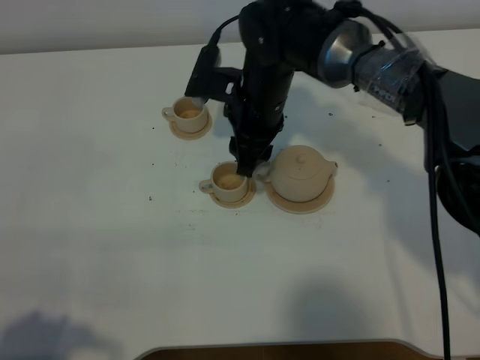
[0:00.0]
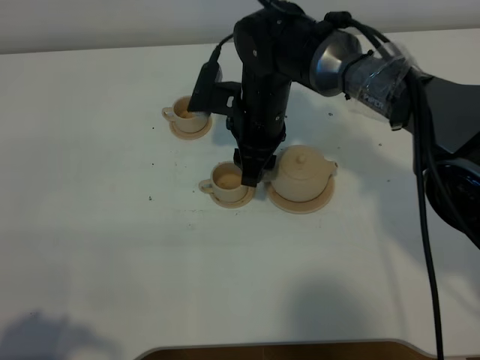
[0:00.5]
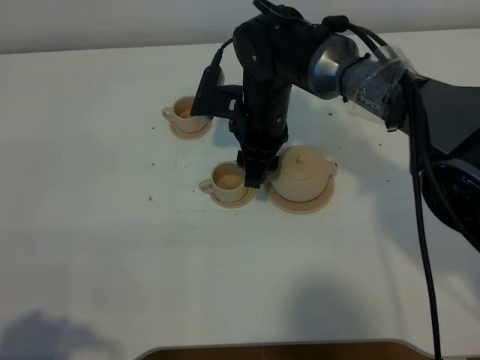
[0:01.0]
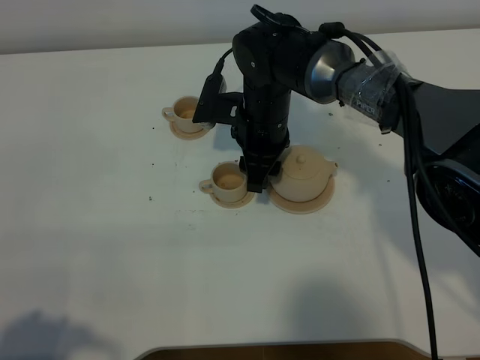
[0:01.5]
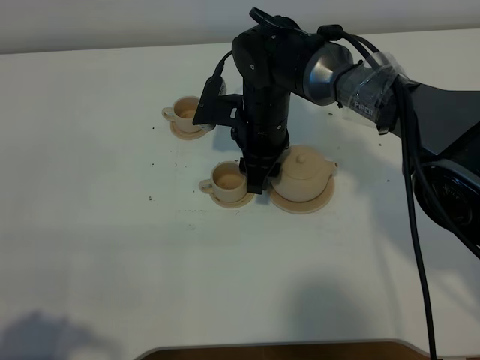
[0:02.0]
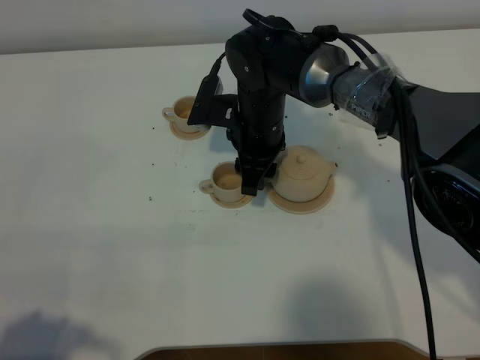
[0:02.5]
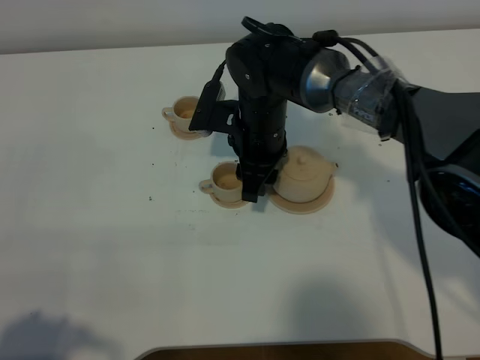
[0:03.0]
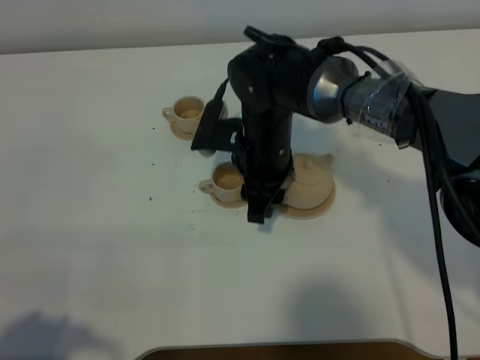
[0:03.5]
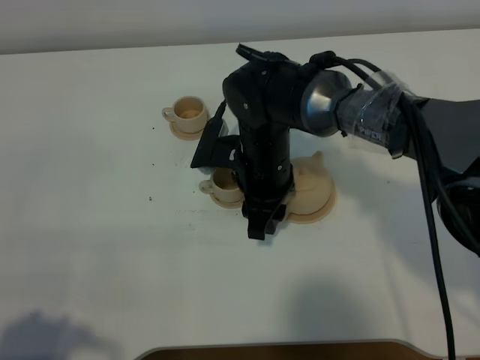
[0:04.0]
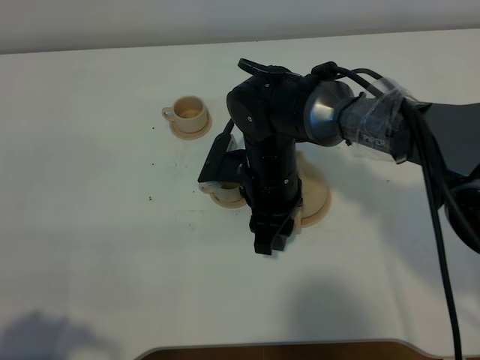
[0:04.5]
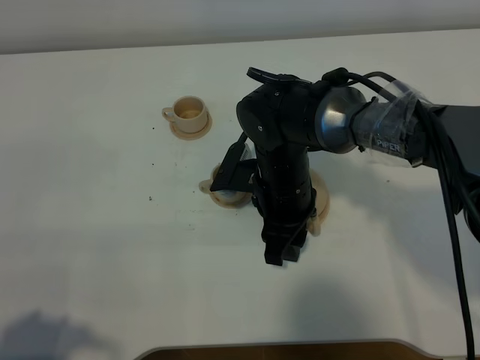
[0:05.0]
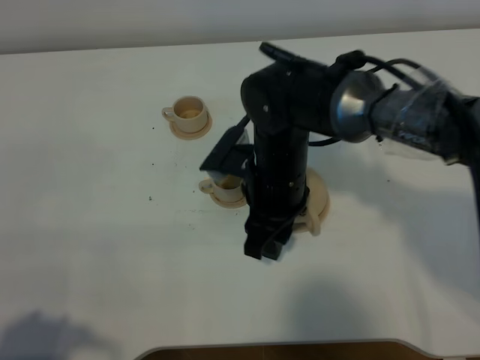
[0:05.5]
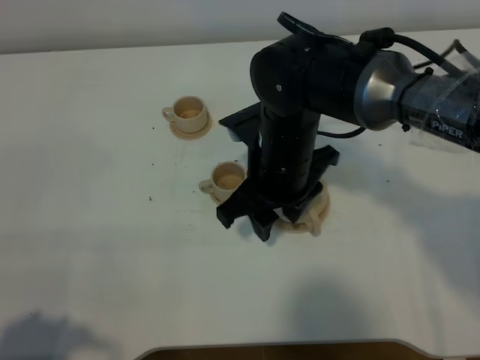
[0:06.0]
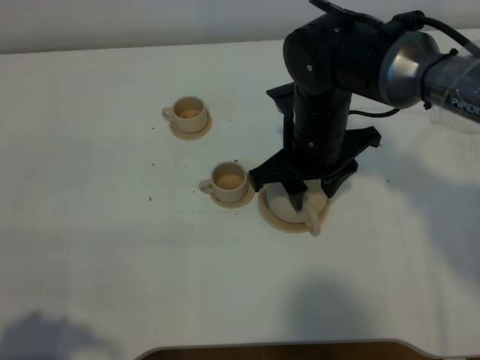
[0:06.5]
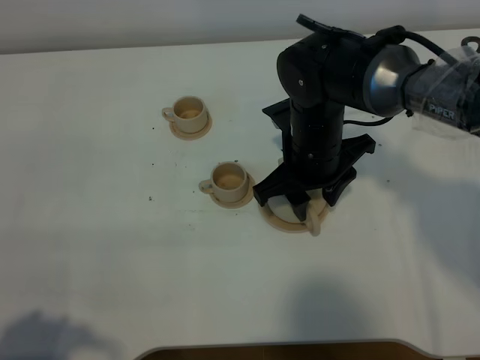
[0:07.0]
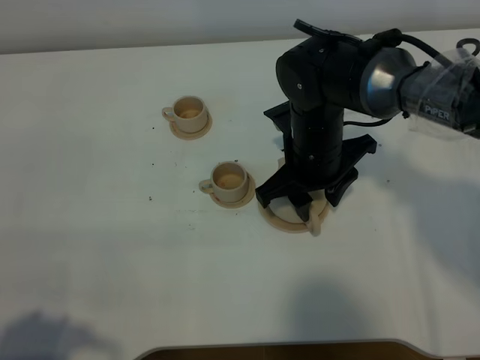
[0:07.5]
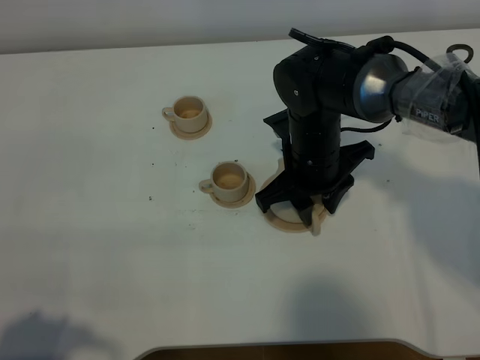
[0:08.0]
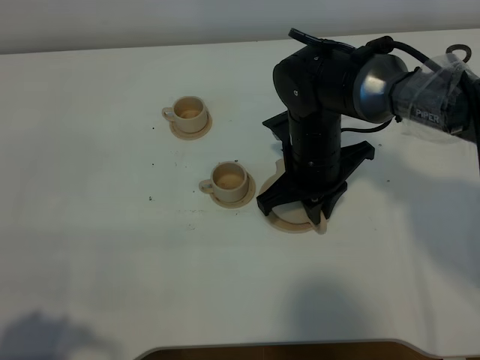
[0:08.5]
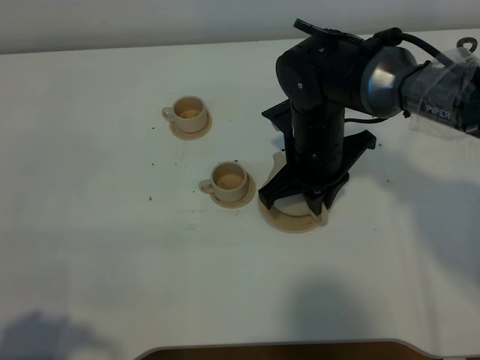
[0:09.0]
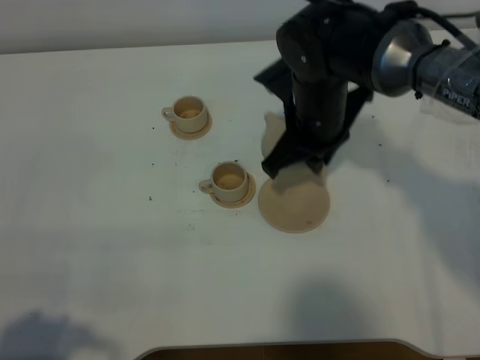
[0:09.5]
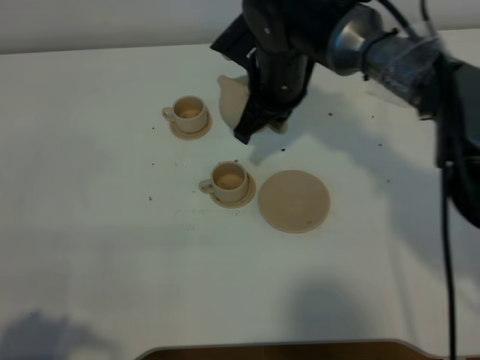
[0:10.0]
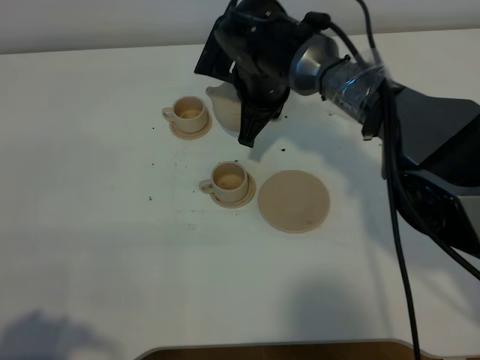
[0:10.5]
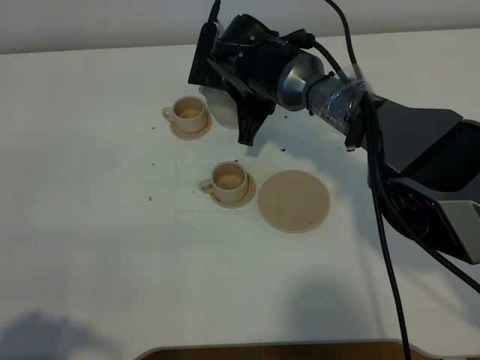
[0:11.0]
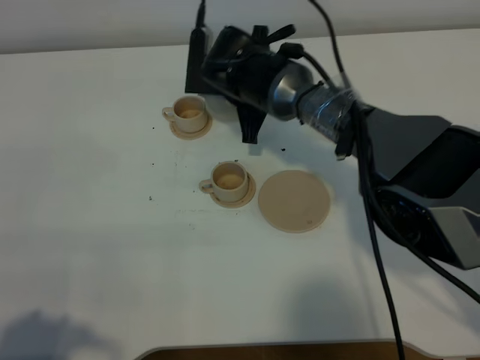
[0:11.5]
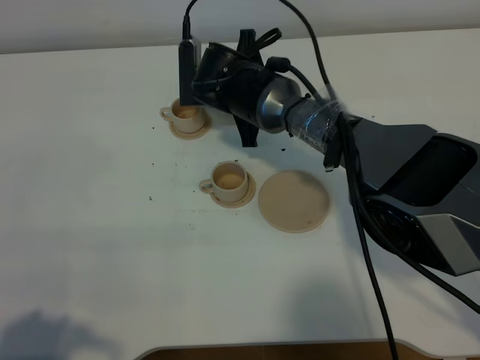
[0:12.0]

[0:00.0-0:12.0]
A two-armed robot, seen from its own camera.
Task of the whole recording: grasp the brown teapot and pour the tea into the two brown teacups one by one, put the brown teapot back in its original place.
Step, 0:00.0 to 0:09.0: Pick up the teapot with the right gripper.
0:00.0 to 0:02.0: The grippers make only small movements.
0:02.0 to 0:04.0: The right gripper is displaced backward by about 5 cm.
0:04.0 to 0:06.0: The right gripper heads upward, covering roughly 5 cm.
0:06.0 to 0:08.0: The right gripper shifts by approximately 5 cm.
0:08.0 to 0:10.0: The right gripper goes roughly 10 cm forward and upward, and closes its fingers.
0:10.0 to 0:12.0: The right gripper heads downward, covering roughly 5 cm.

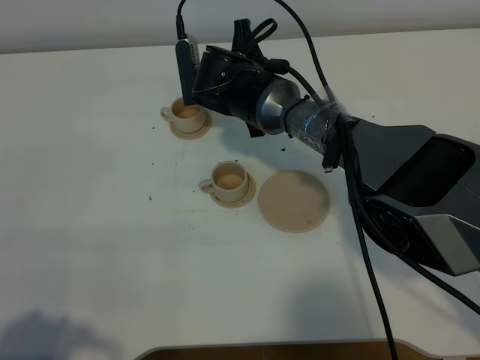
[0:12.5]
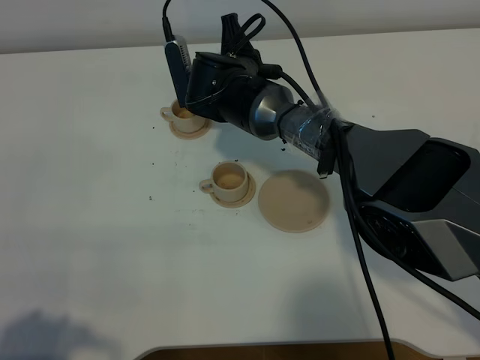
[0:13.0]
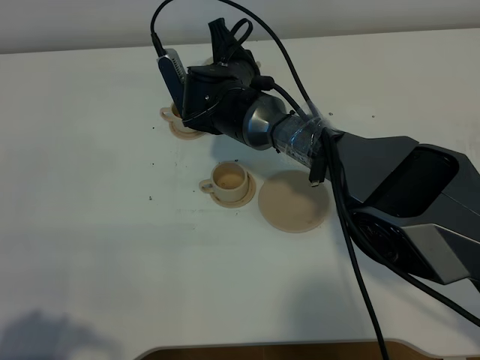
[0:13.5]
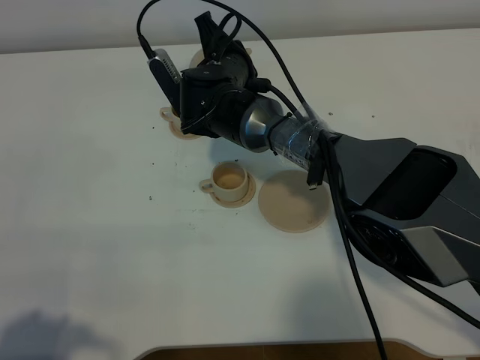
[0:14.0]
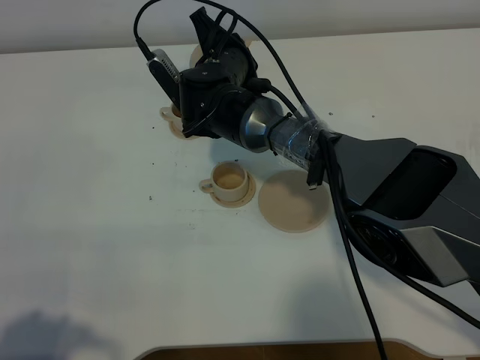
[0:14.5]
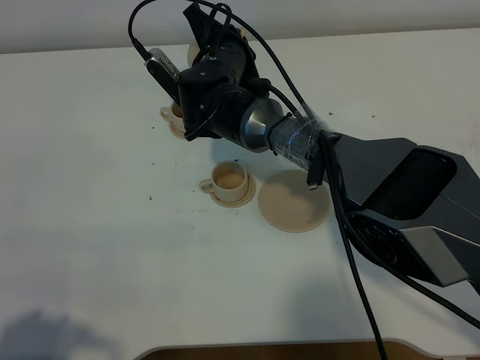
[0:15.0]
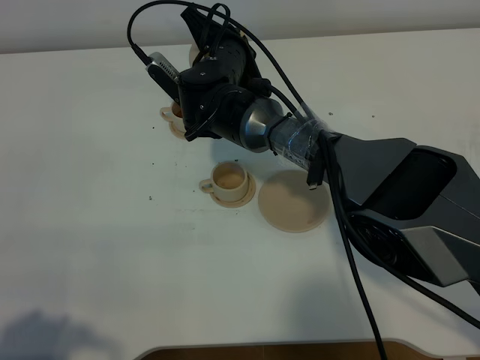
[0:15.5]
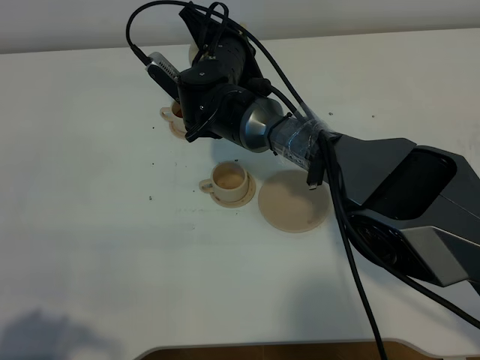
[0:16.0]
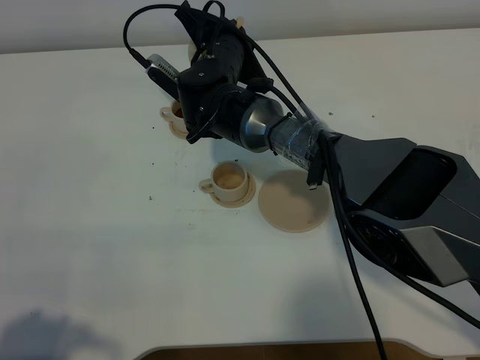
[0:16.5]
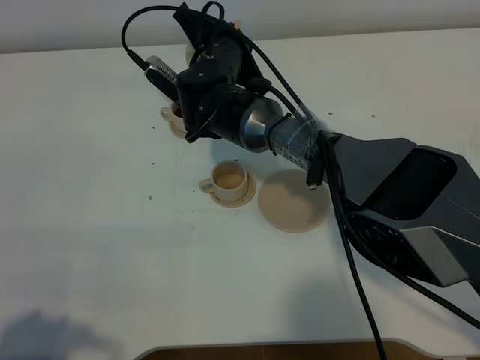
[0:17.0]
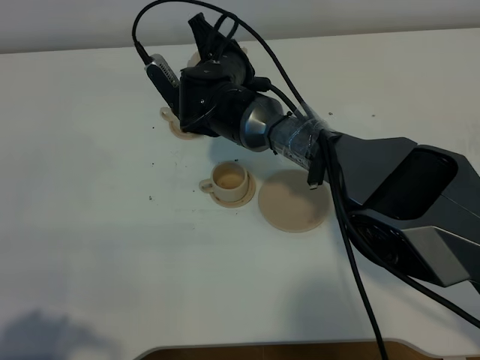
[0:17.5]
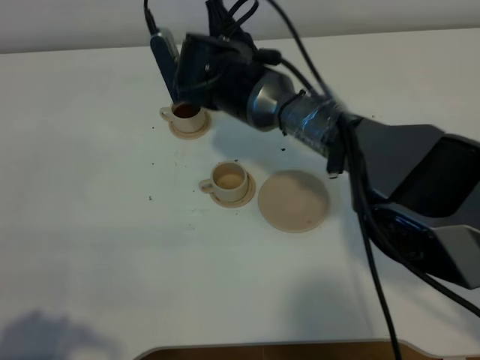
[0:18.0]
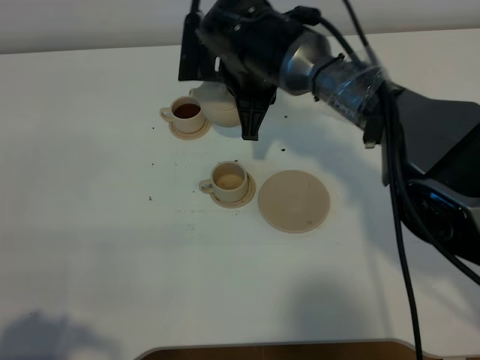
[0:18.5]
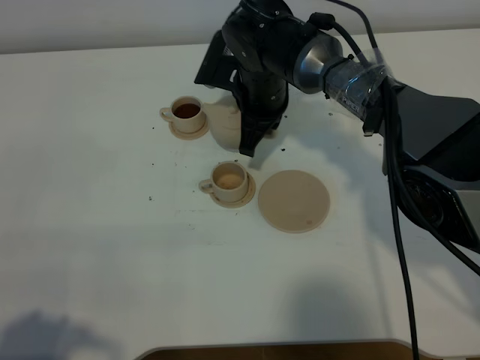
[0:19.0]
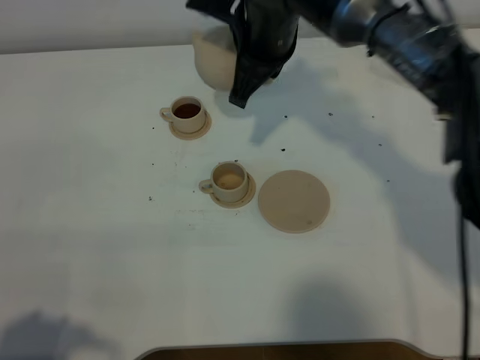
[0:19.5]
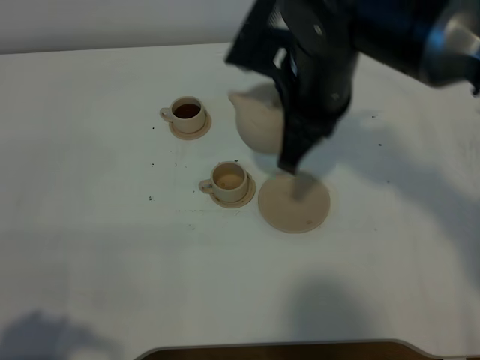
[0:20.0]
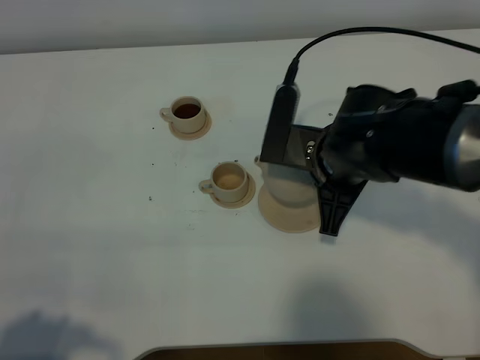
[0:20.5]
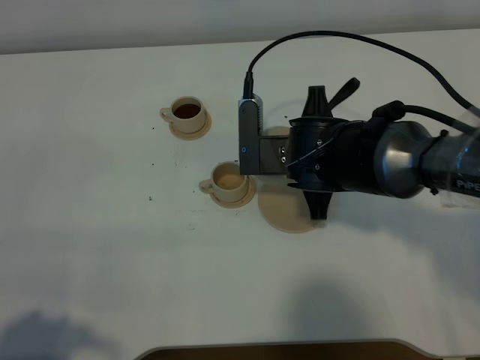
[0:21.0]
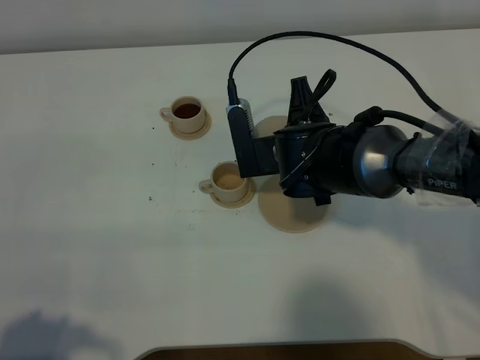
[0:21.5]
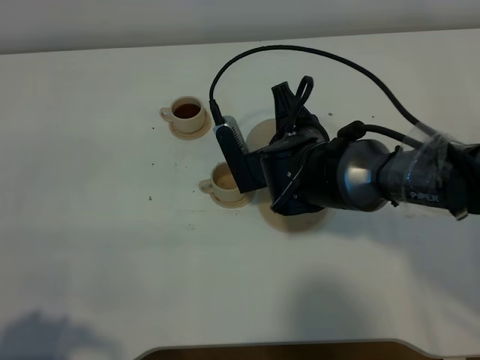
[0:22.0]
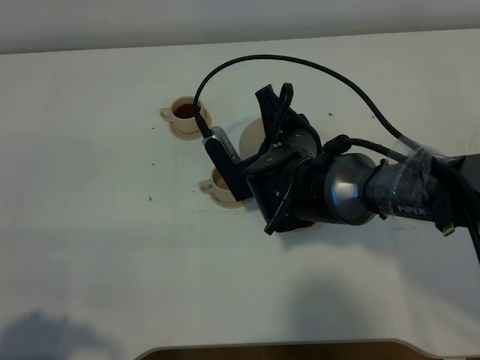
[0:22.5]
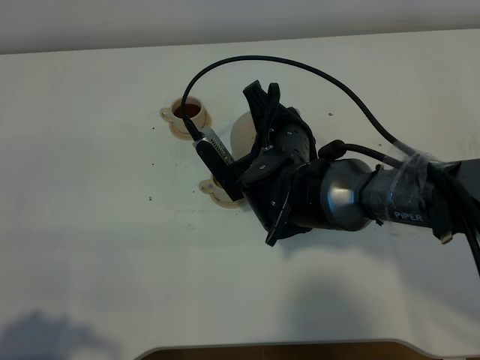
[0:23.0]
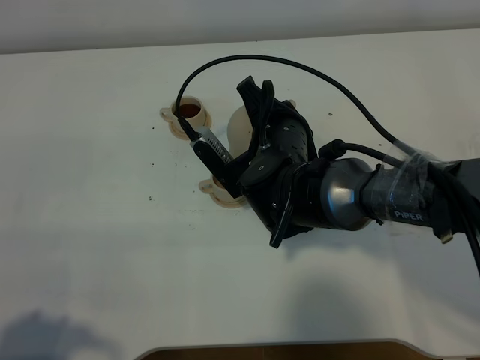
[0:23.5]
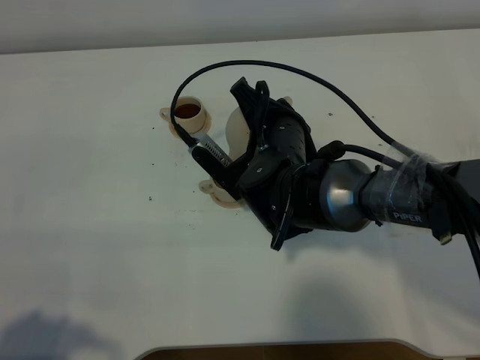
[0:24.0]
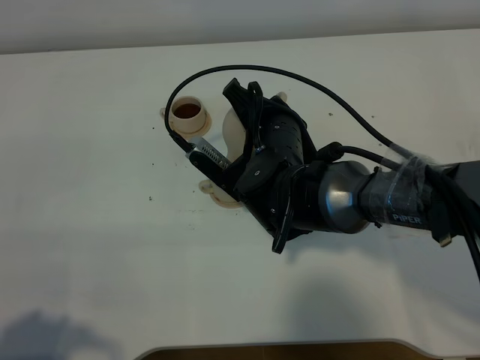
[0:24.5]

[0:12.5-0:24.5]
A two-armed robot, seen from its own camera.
Task of the whole recording: grasp the brown teapot and pour the tea into the two brown teacups one by one, put the brown teapot back in its original place.
Step, 0:12.5 to 0:18.0: Pour tea into the teacup with the right gripper.
0:14.5 to 0:16.5: There are only small adjustments of the grippers.
0:16.5 to 0:18.5: The right gripper ends up approximately 5 cm from where it was.
0:18.5 to 0:20.5: The right gripper goes some 15 cm backward and to the right.
0:20.5 to 0:22.5: The right gripper moves to the left, some 5 cm.
0:22.5 to 0:24.5: There are only small adjustments of the grippers.

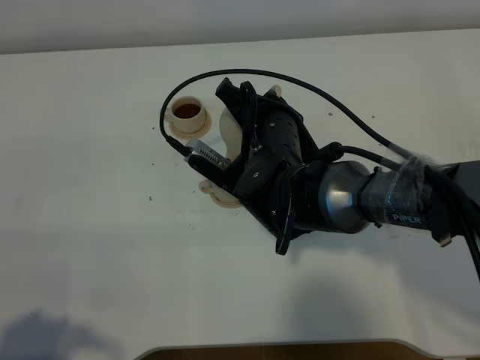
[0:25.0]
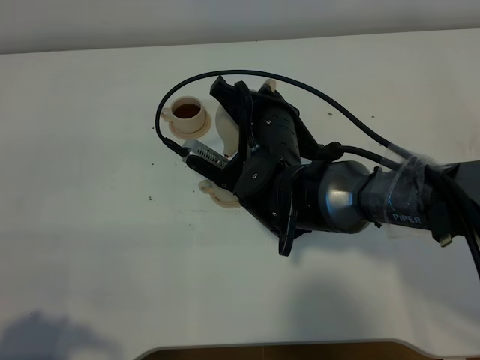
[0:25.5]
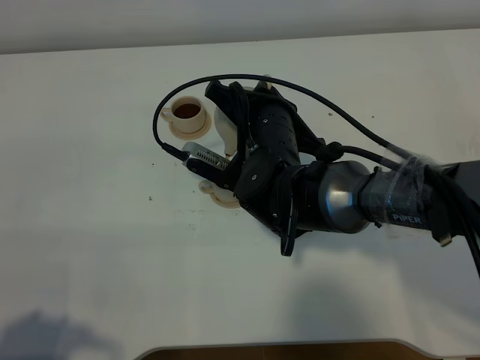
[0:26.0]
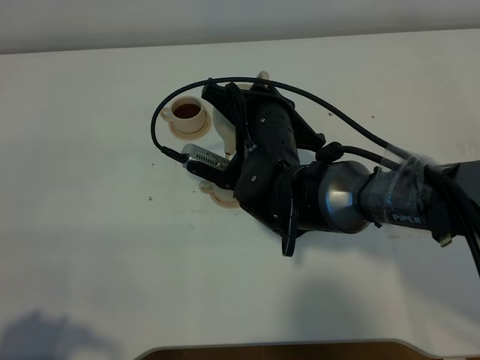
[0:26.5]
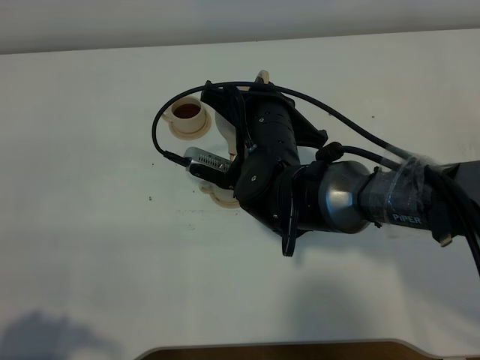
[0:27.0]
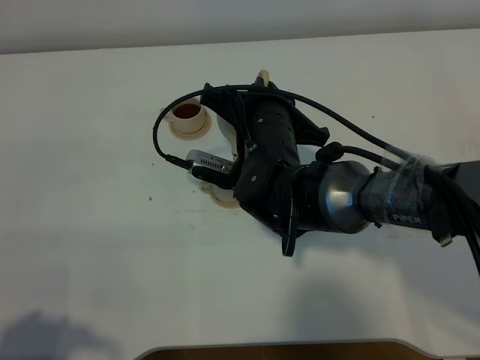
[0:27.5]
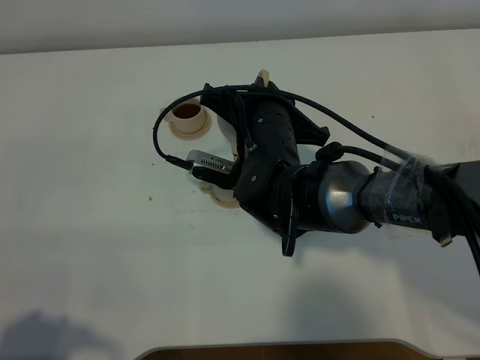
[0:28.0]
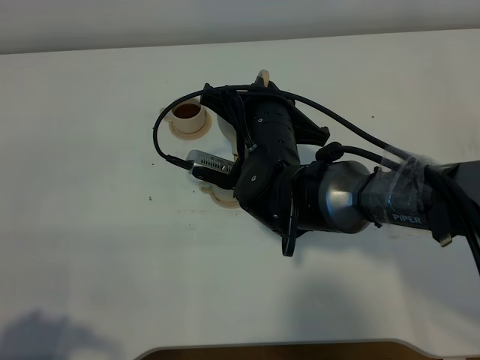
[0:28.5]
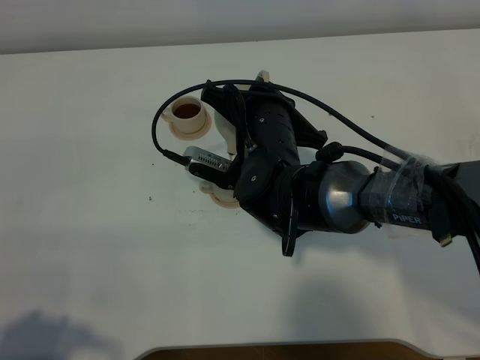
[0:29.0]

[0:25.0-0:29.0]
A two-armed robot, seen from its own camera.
Task of the whole recording: grasp the brown teapot and pour the tea into the two brown teacups one by one, put the brown teapot back in its original place.
0:25.0 to 0:27.0: There are only small adjustments of the grippers.
0:27.0 to 0:29.0: Both grippers stay about where they are.
